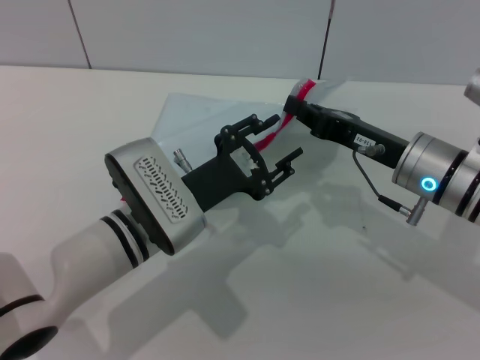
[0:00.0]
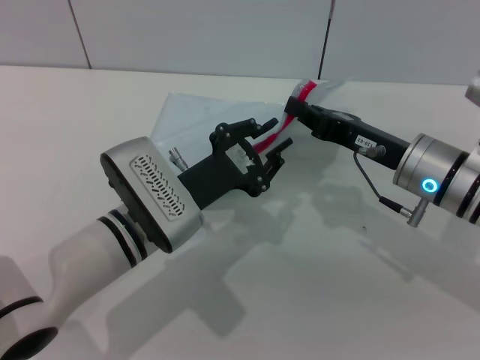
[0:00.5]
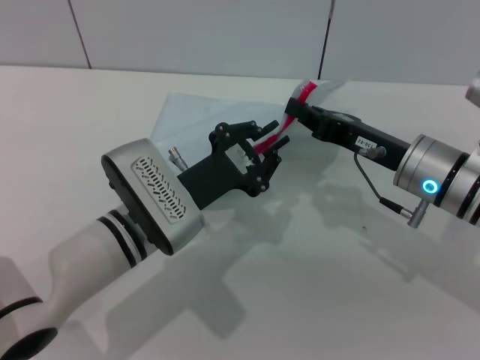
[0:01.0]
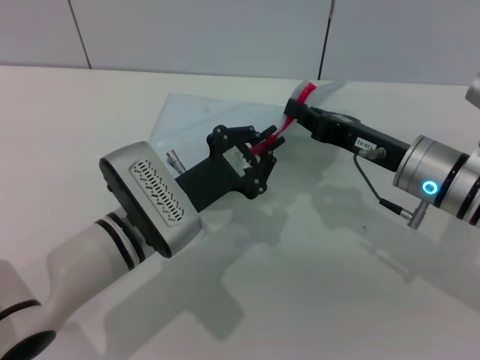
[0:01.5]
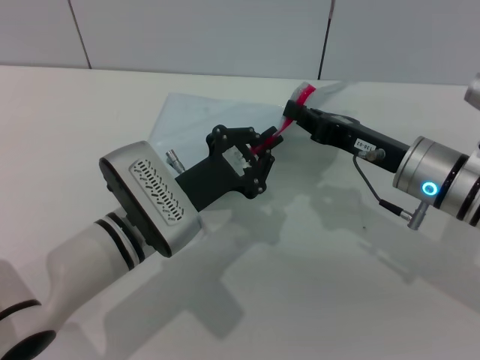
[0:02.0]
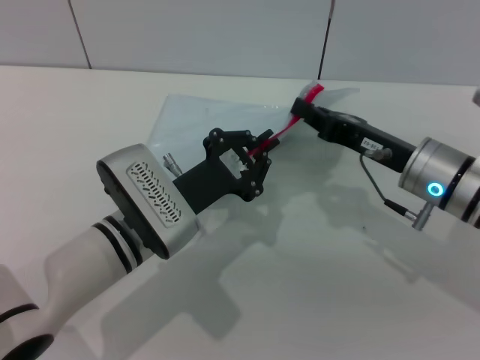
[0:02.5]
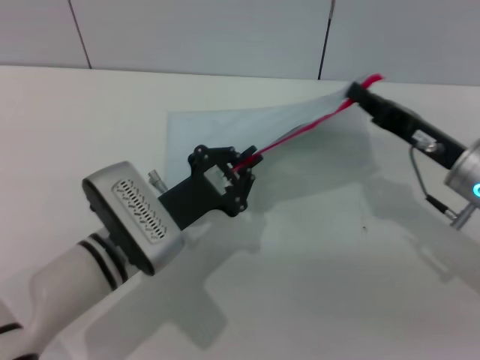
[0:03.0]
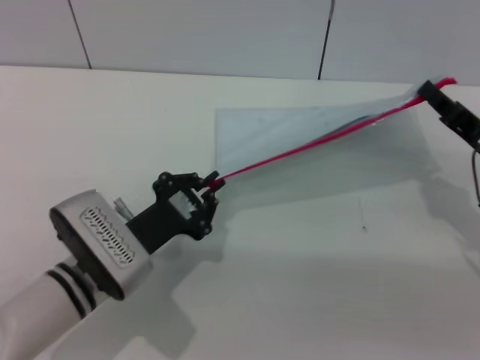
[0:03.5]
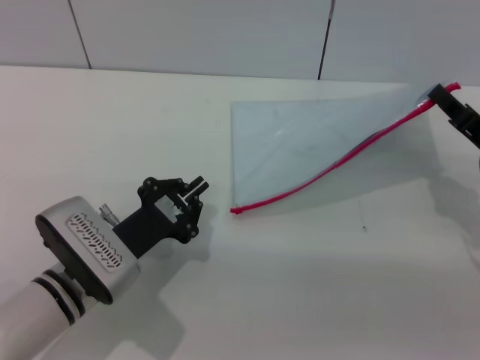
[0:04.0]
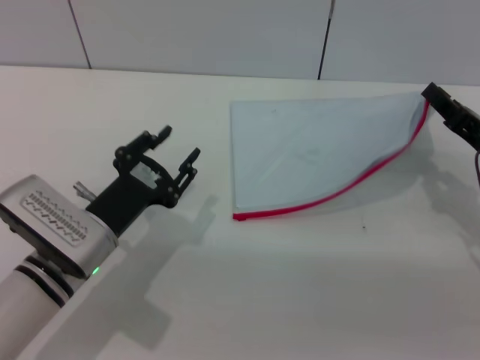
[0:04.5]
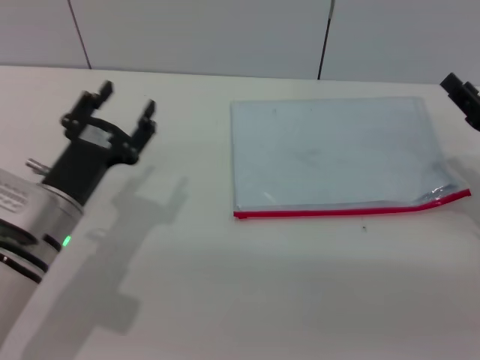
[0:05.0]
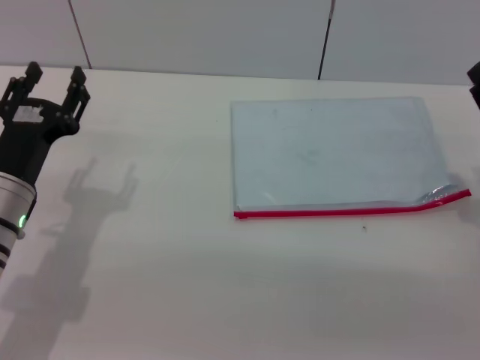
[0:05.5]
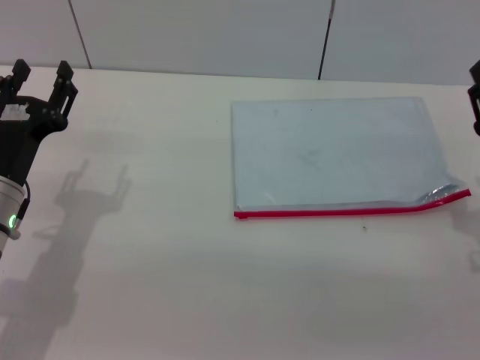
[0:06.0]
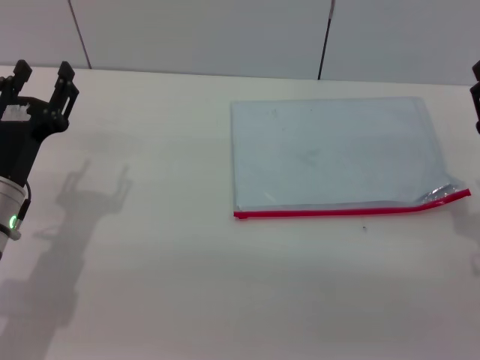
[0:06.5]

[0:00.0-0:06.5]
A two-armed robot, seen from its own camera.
Step, 0:00.0 to 0:04.0: Pulling up the zipper on the transparent plastic bag with the left gripper to close it.
Step, 0:04.5 to 0:05.0: Place the transparent plastic bag.
0:00.0 to 0:02.0: The left gripper closes its fingers.
0:02.0 to 0:04.5: The left gripper moves to the left, approximately 5 cm, while the right gripper is displaced to the right by about 10 cm.
0:04.5 to 0:06.5: The right gripper shifts by roughly 5 cm, and opens, while the left gripper is displaced to the left by about 5 cm, and opens its fingers.

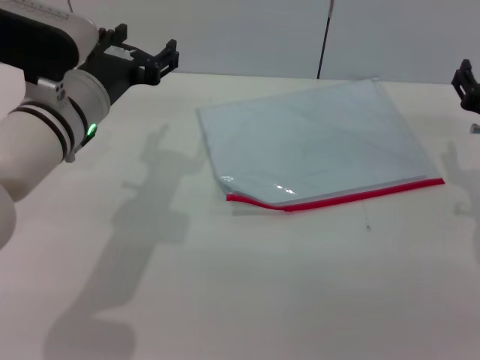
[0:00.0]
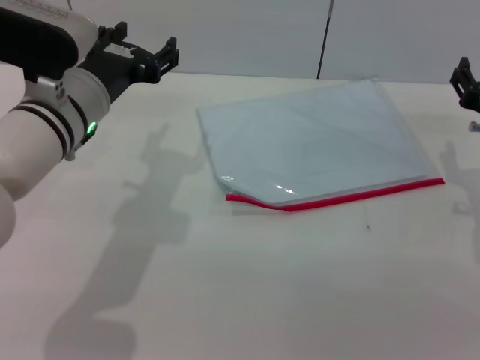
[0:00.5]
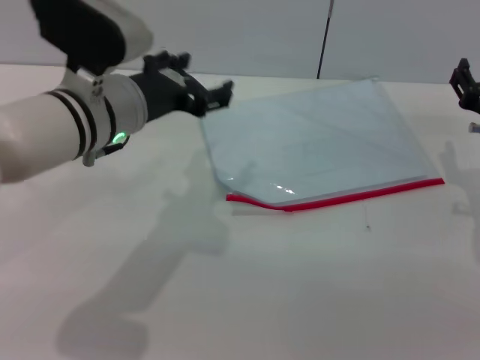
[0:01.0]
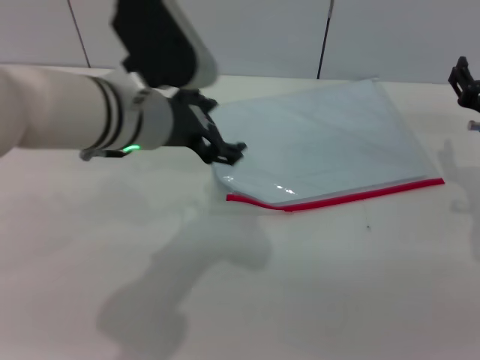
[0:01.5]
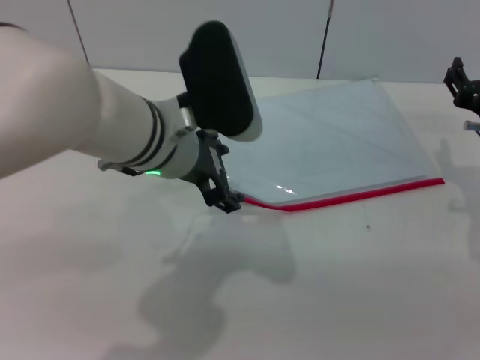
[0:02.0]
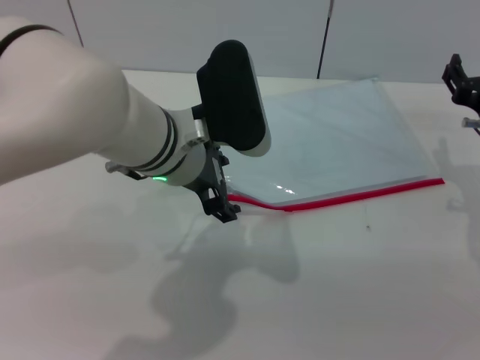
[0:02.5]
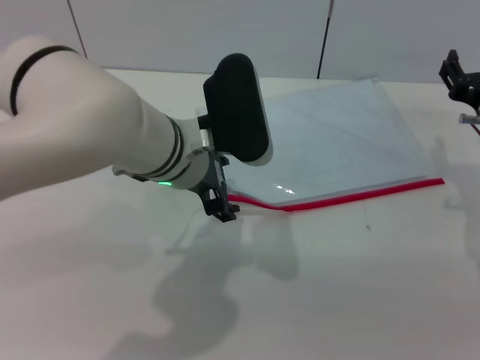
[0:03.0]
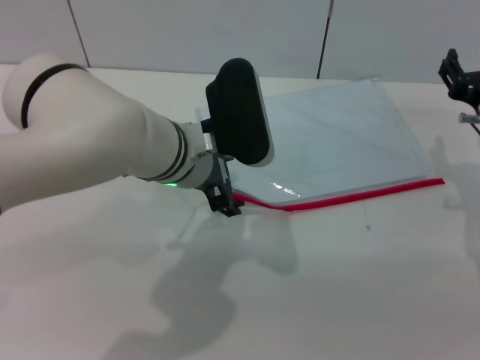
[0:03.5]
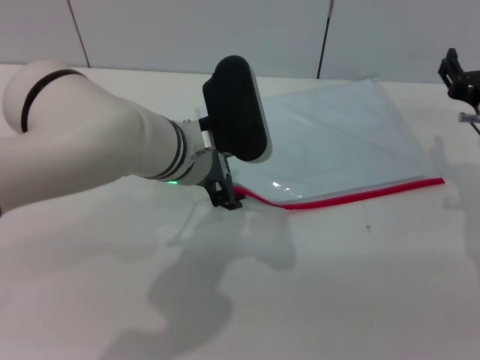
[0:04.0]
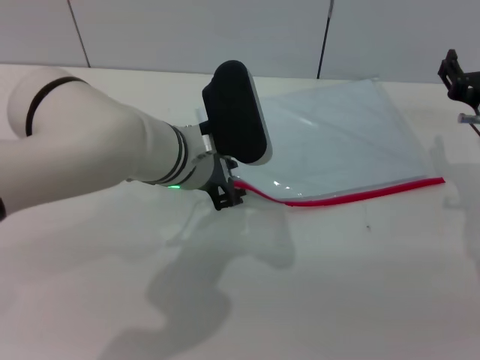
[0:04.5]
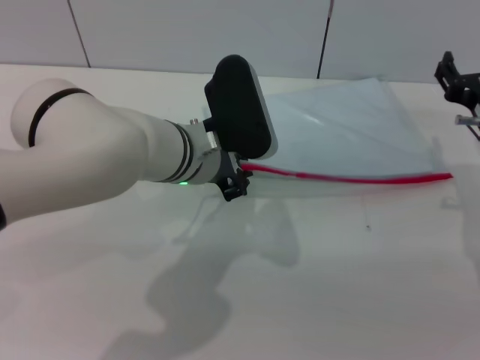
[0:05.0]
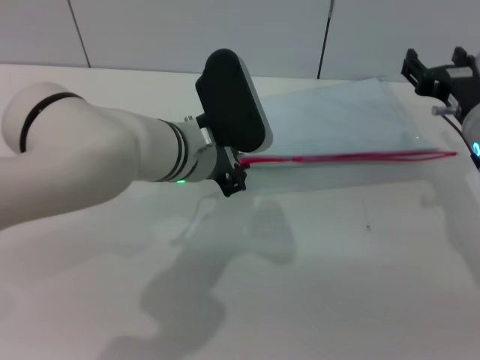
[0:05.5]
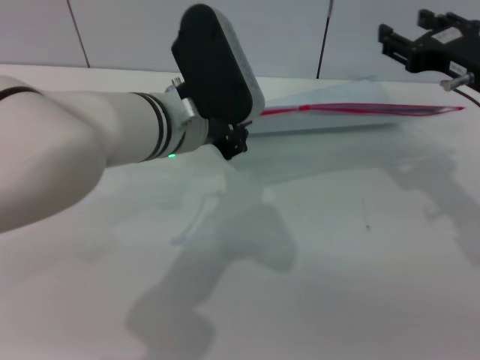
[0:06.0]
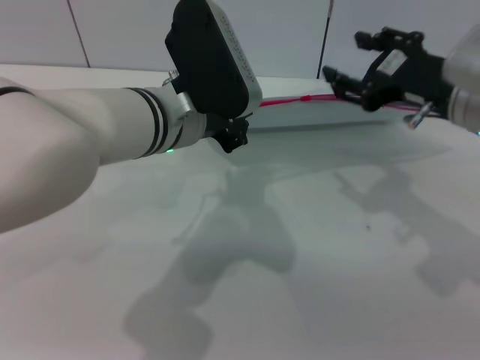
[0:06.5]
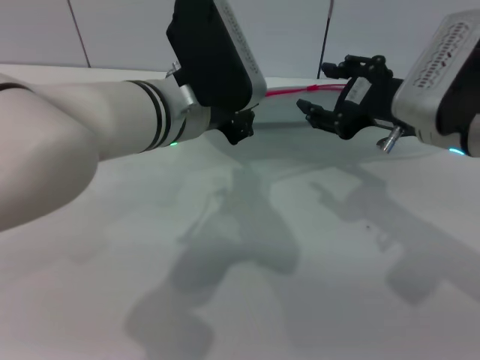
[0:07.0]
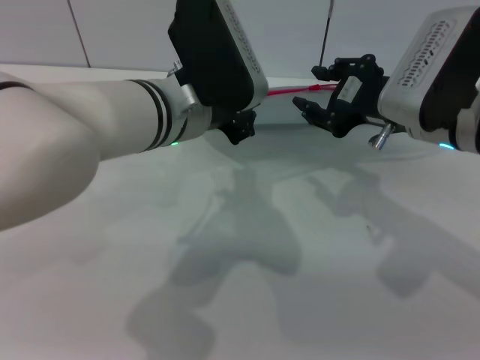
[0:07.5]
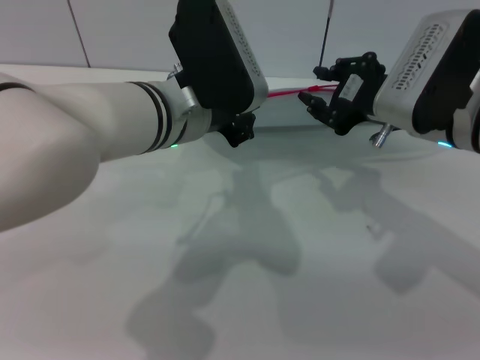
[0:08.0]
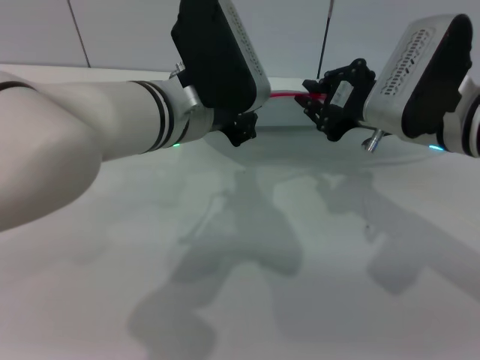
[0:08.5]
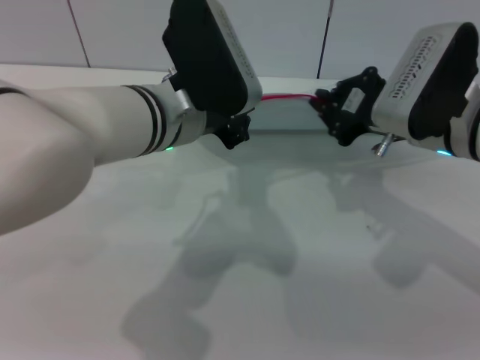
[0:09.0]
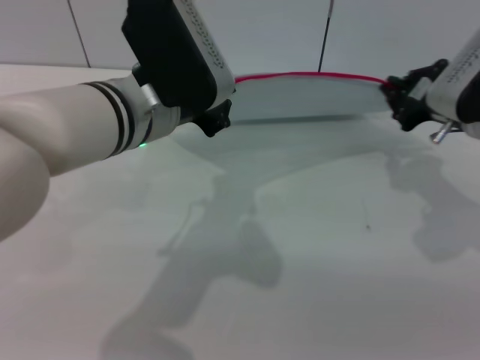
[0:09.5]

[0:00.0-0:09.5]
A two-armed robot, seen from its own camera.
Step, 0:00.0 to 0:06.5: Pick up the transparent plastic bag with the left gripper.
0:00.0 to 0:02.0: The left gripper heads to the right, covering about 10 cm.
0:02.0 to 0:04.0: There are only small adjustments of the grippers.
0:04.0 to 0:05.5: The left gripper closes up.
0:05.5 to 0:07.5: The left gripper is displaced upward by about 5 cm. Meanwhile the right gripper shifts roughly 5 cm upward and to the left.
0:07.5 to 0:09.5: The right gripper is displaced to the right by about 5 cm, and closes up.

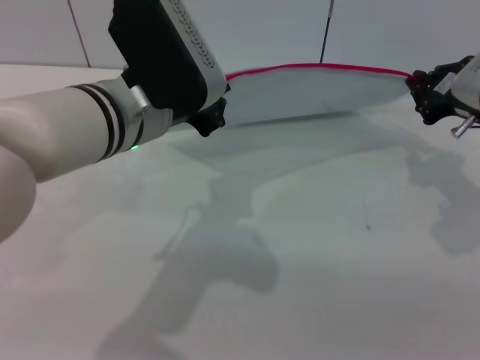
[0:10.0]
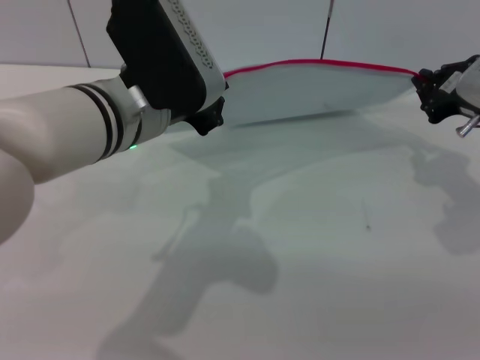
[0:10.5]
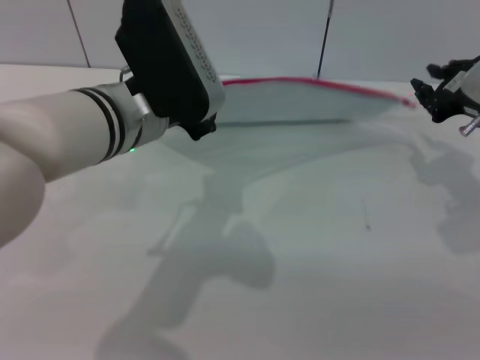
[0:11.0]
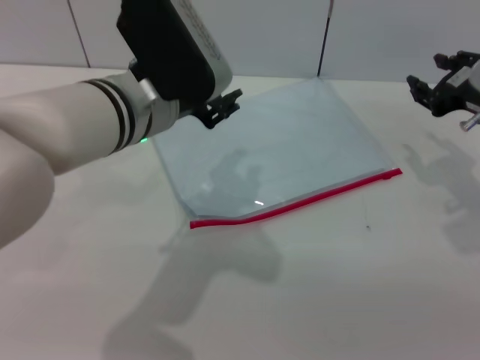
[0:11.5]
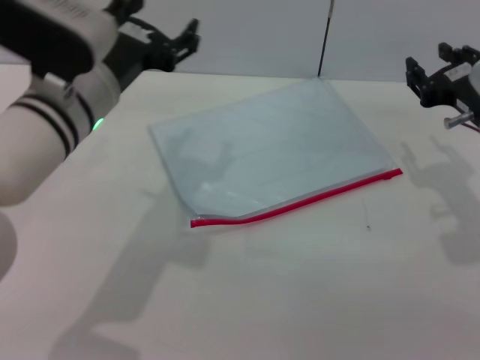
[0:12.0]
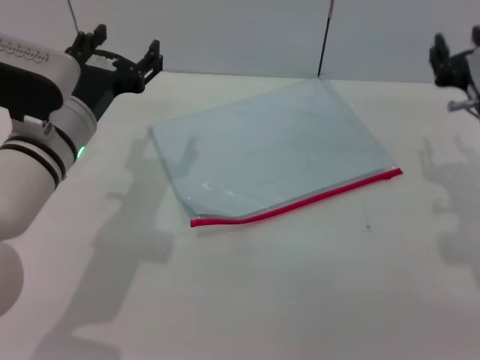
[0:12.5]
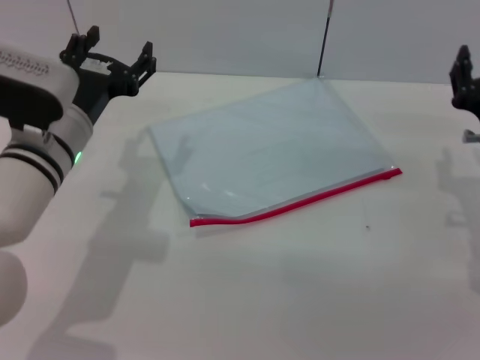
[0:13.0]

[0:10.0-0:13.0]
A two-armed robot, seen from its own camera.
0:10.0 to 0:11.5: The right gripper opens up.
0:11.5 to 0:13.0: The left gripper shifts about 10 cm to the left and downward, and opens its fingers. The right gripper goes approximately 10 cm downward and backward.
